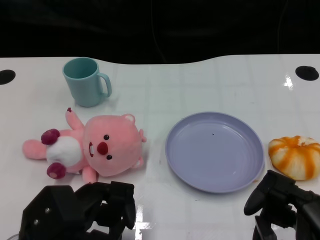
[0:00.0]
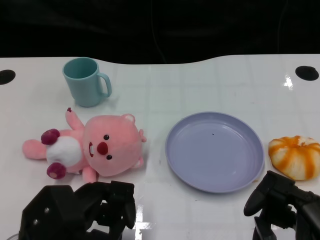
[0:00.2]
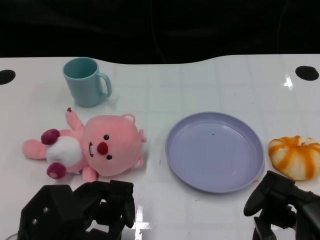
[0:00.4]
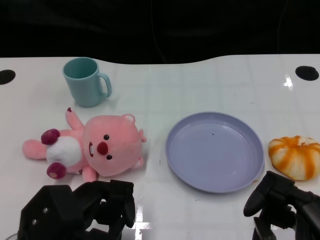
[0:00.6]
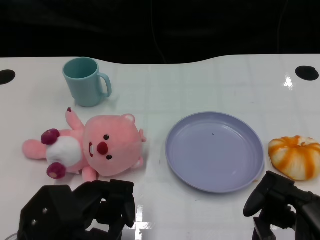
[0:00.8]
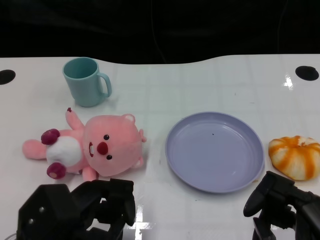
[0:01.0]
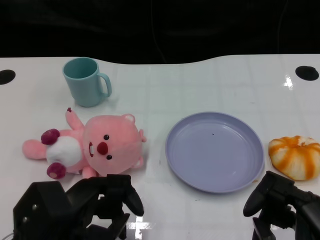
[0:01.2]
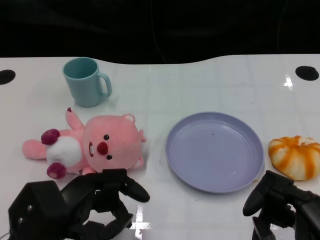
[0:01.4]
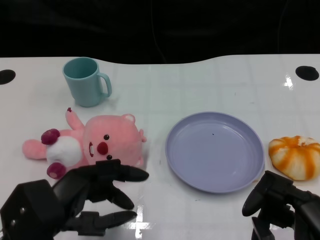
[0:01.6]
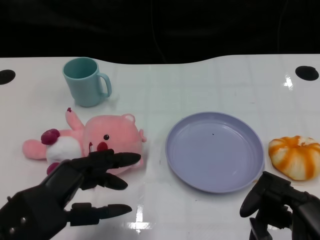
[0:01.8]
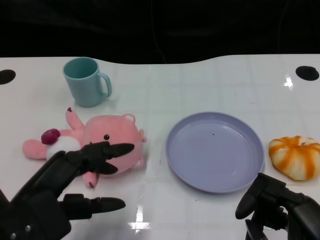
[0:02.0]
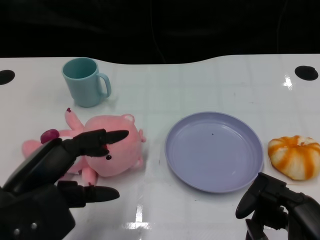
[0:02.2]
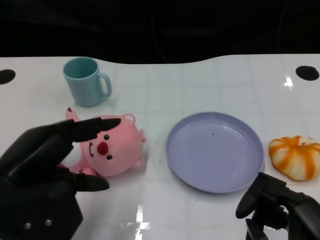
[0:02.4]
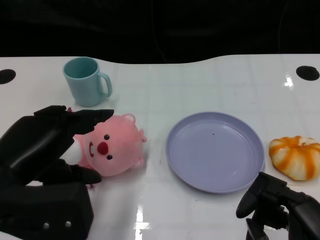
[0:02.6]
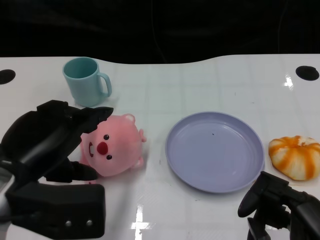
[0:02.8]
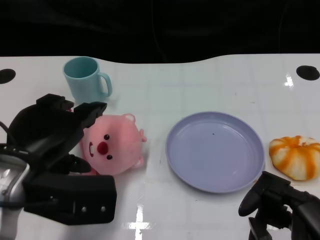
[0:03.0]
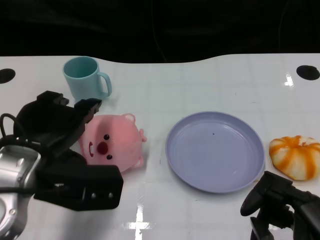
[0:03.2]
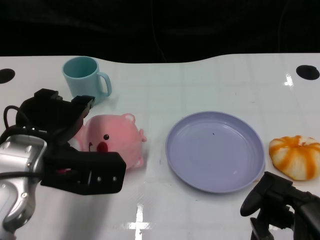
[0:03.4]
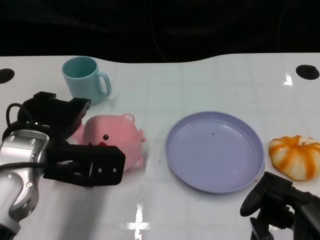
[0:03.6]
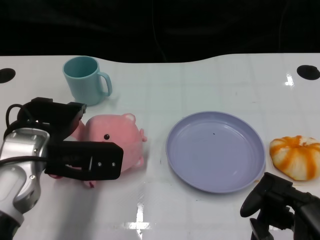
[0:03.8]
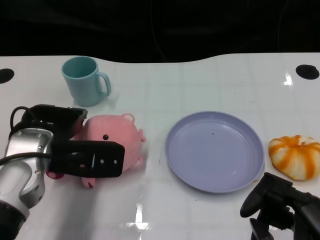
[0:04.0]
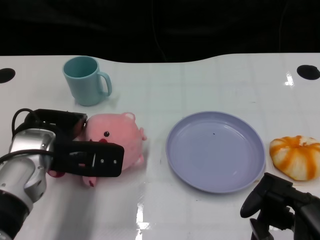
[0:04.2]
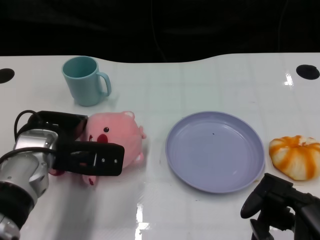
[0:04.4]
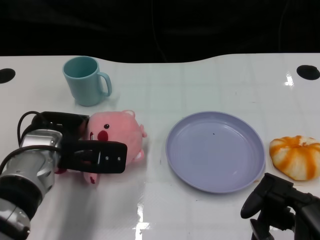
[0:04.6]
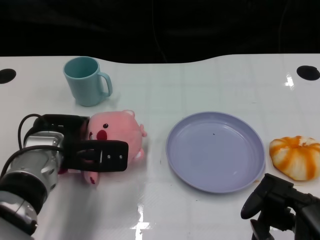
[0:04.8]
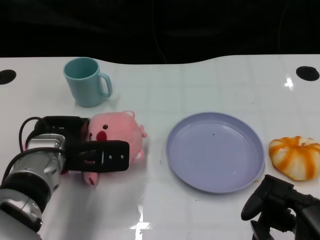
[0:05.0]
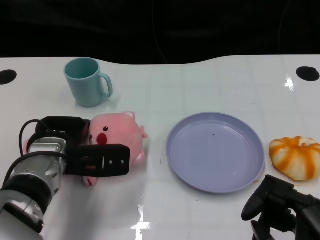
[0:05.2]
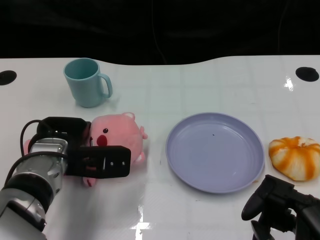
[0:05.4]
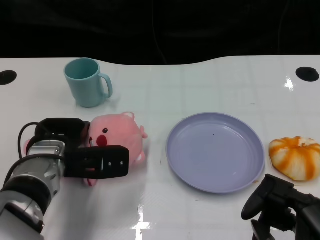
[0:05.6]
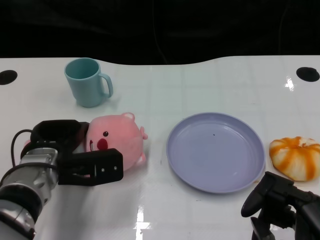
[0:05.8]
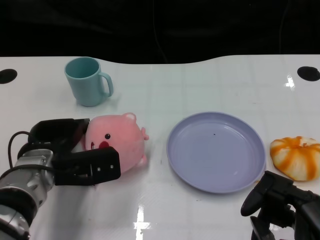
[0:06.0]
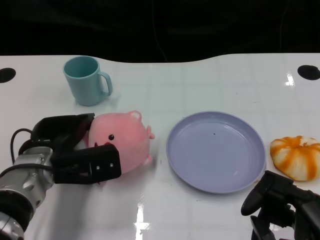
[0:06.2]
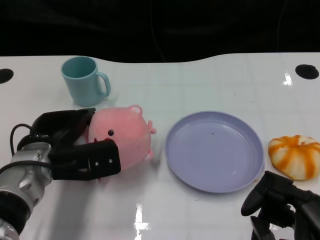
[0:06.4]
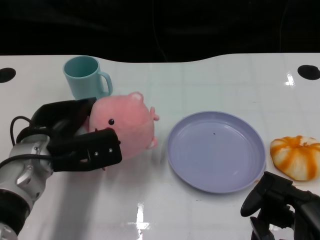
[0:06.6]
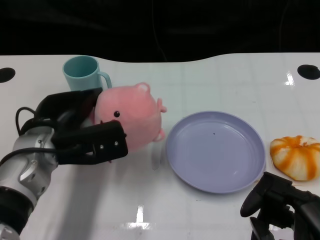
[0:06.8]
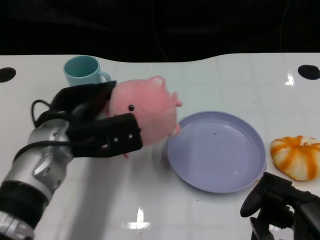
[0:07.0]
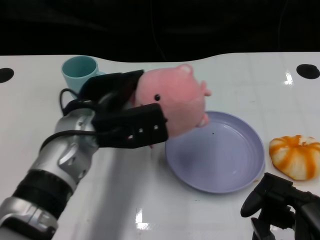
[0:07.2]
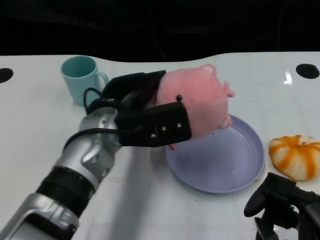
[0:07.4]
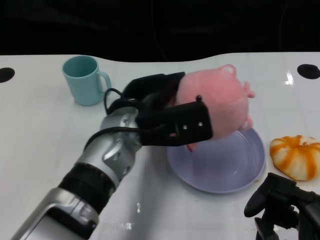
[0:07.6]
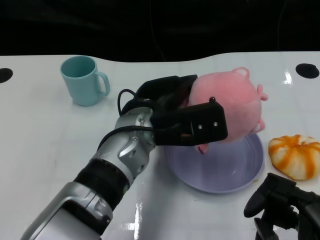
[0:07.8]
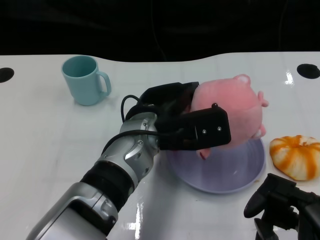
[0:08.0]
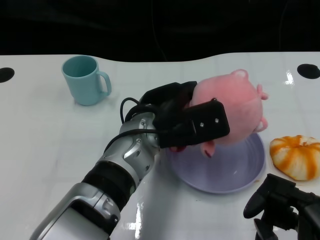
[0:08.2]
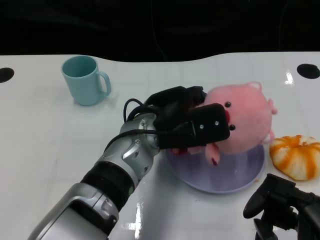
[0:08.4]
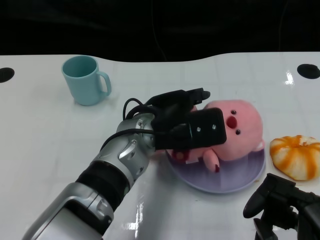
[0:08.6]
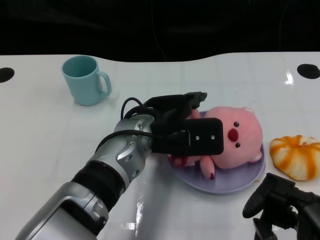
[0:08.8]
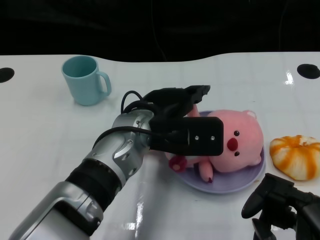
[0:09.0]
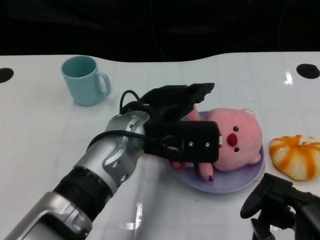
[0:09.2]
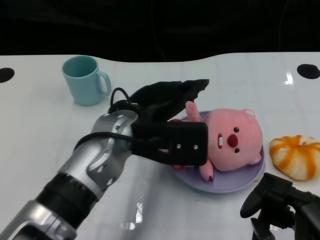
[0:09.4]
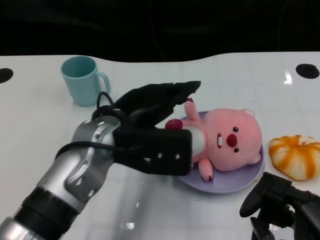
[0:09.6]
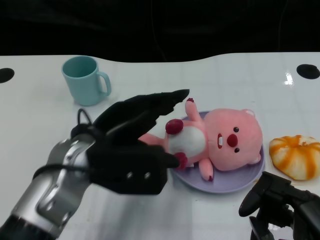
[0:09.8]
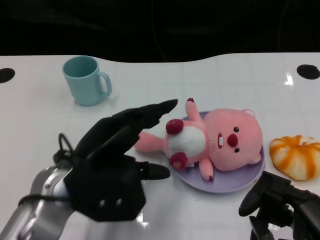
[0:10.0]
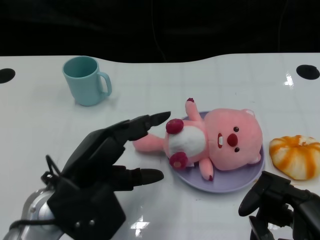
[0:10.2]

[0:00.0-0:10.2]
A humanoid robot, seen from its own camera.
Task of the whole recording: Pick up the doll on one side of the plate and place it into the plate.
Step, 0:01.0 to 0:06.6: Grasp the pink doll with the left gripper.
Step, 0:06.8 to 0:09.2: Place the pink doll into the plate with the left gripper.
0:01.4 to 0:03.0: The left hand goes some 10 cm upward.
0:03.0 to 0:04.4: The left hand moves forward and downward, approximately 10 cm.
0:04.4 to 0:05.8: The hands make only small movements.
0:05.8 to 0:07.2: The left hand heads upward and to the right, covering approximately 10 cm.
0:07.2 to 0:08.8: The left hand travels to the right by some 10 cm.
0:08.8 to 0:10.2: The left hand heads to the left and backward, covering approximately 15 cm.

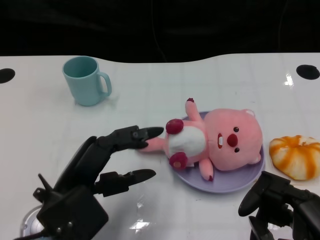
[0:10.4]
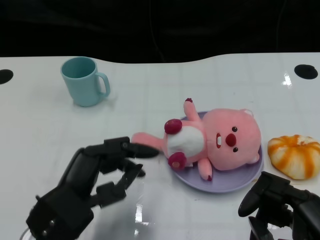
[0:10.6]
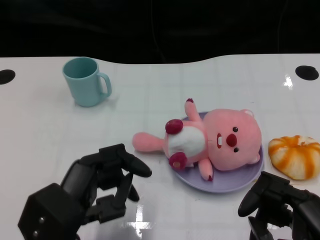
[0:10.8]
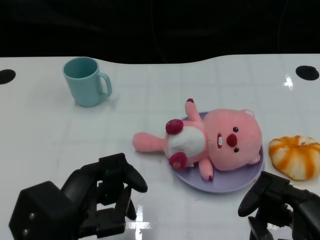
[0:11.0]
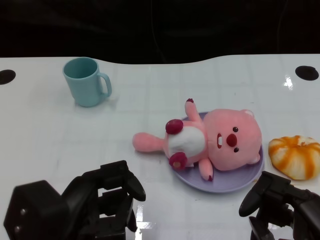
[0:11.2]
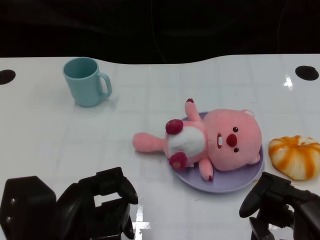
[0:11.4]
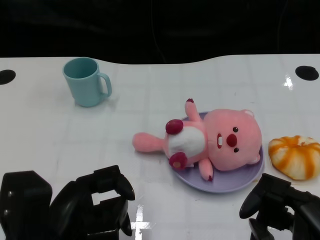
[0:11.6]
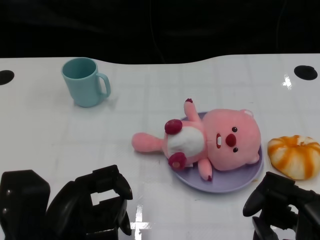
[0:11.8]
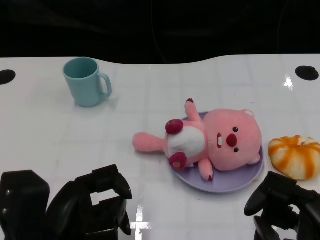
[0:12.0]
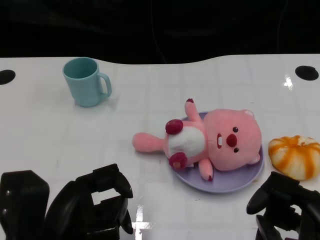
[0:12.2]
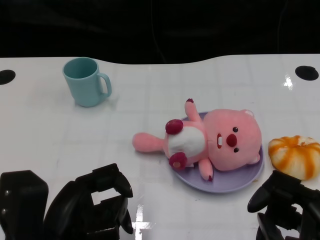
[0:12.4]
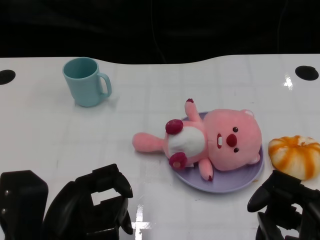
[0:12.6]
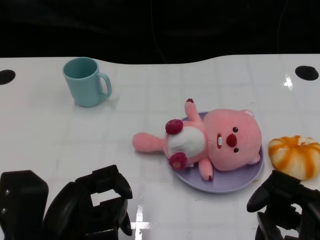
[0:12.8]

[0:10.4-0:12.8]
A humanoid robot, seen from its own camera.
Task of the whole recording: Pick up the doll on one side of the plate and place it into the plate.
0:10.4 to 0:11.6: The left hand shifts approximately 5 cm backward.
0:11.6 to 0:12.8: The hands stay close to where they were, moving slightly.

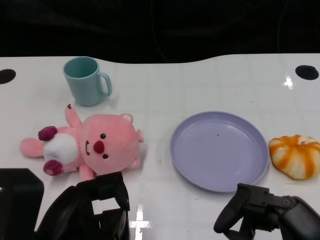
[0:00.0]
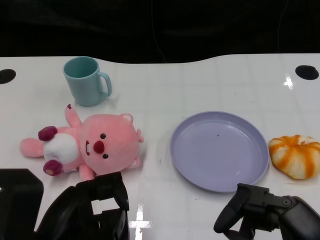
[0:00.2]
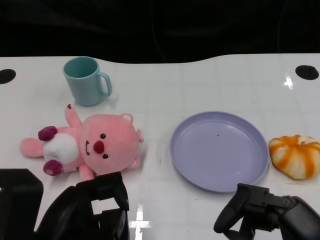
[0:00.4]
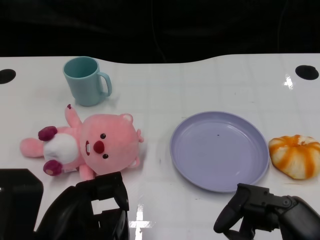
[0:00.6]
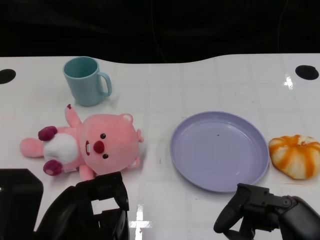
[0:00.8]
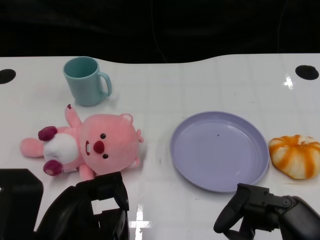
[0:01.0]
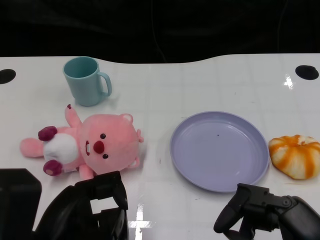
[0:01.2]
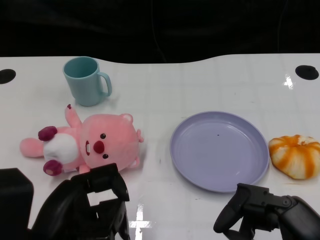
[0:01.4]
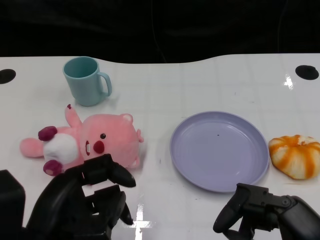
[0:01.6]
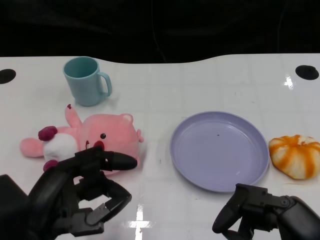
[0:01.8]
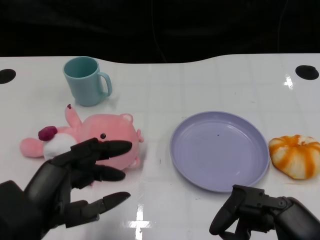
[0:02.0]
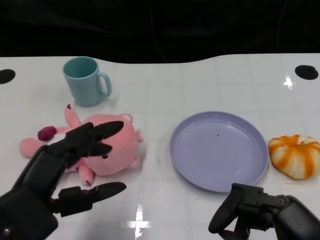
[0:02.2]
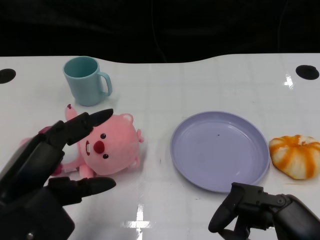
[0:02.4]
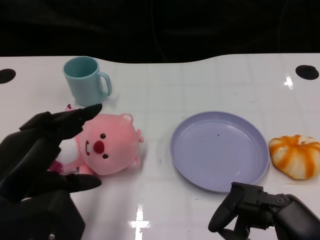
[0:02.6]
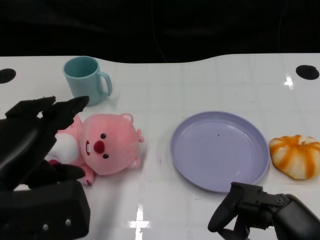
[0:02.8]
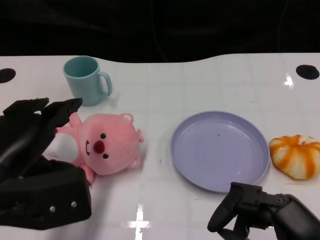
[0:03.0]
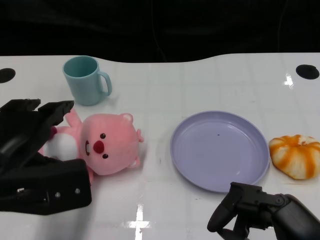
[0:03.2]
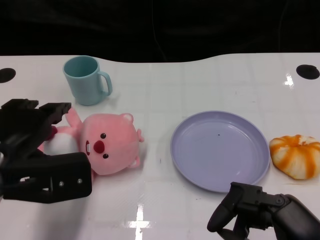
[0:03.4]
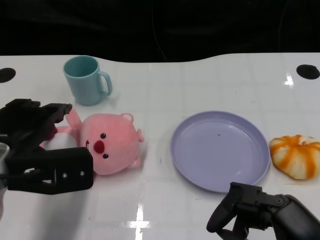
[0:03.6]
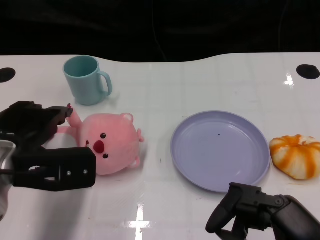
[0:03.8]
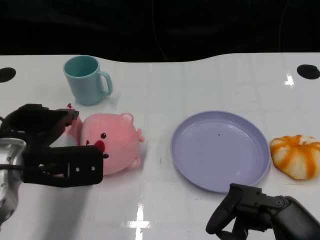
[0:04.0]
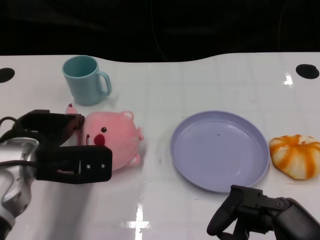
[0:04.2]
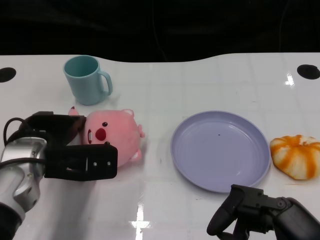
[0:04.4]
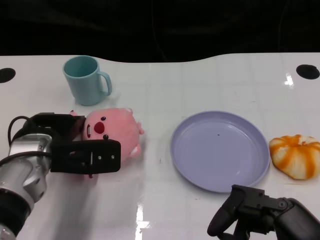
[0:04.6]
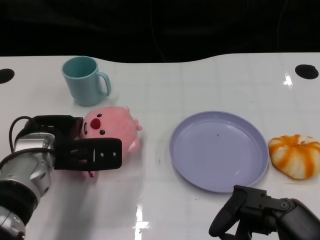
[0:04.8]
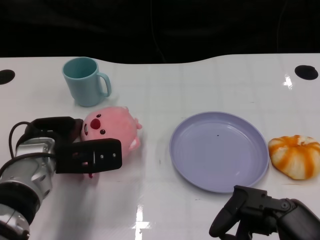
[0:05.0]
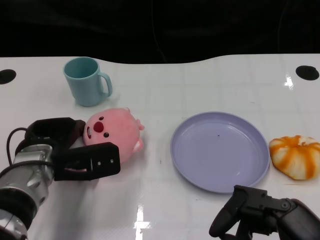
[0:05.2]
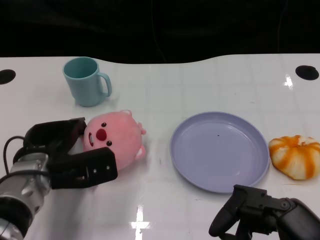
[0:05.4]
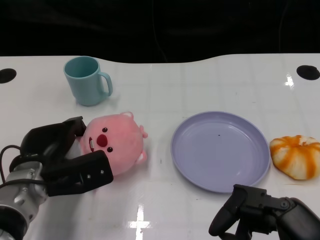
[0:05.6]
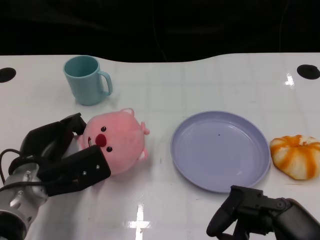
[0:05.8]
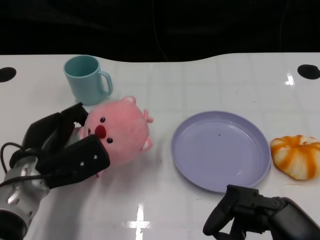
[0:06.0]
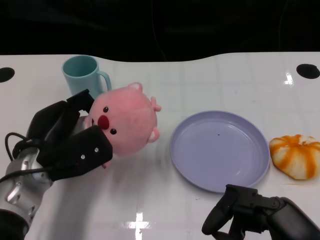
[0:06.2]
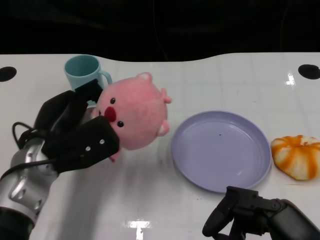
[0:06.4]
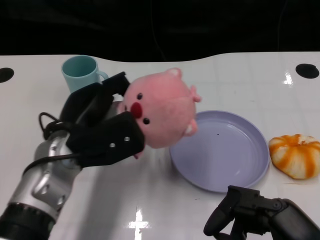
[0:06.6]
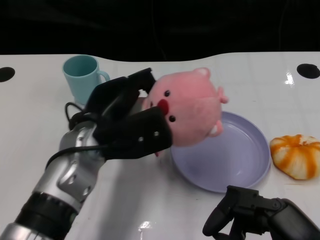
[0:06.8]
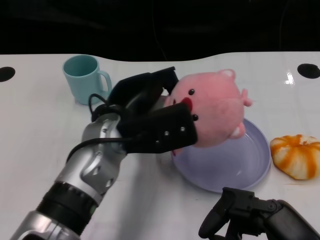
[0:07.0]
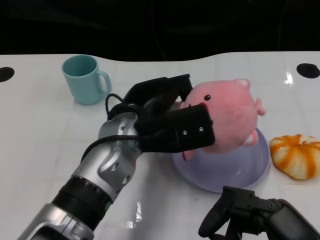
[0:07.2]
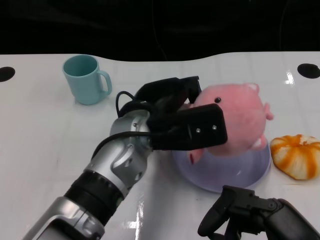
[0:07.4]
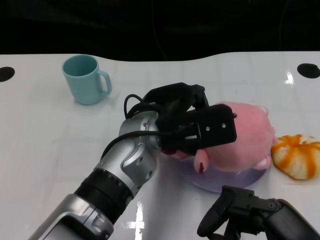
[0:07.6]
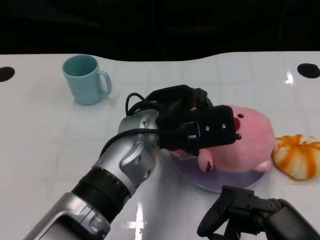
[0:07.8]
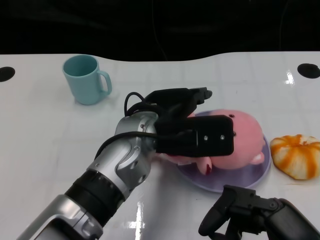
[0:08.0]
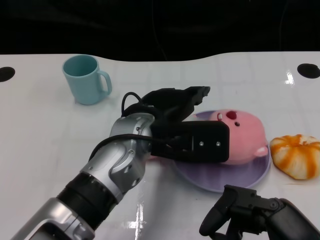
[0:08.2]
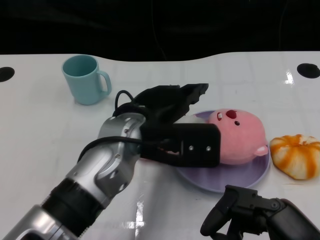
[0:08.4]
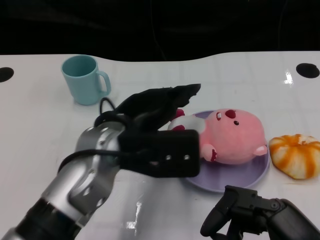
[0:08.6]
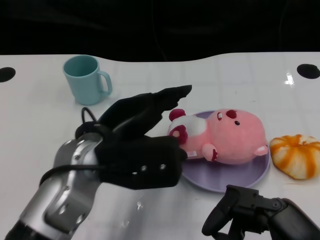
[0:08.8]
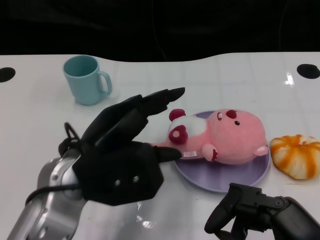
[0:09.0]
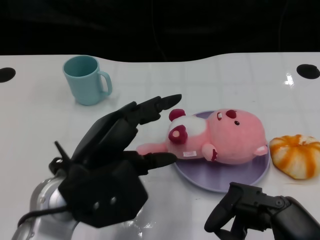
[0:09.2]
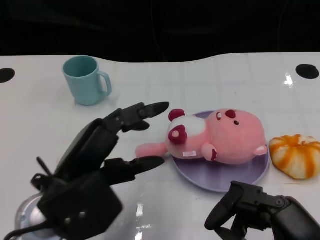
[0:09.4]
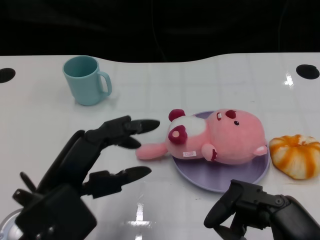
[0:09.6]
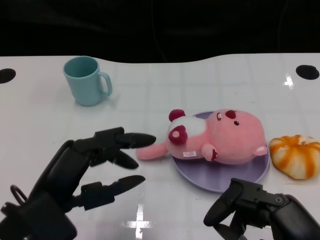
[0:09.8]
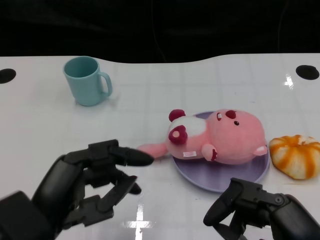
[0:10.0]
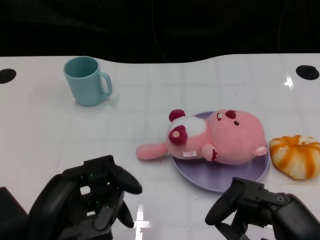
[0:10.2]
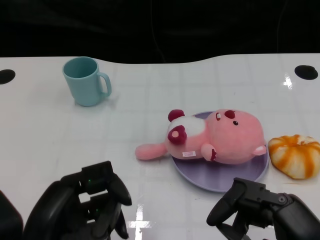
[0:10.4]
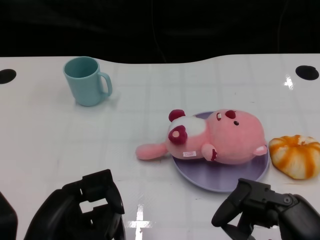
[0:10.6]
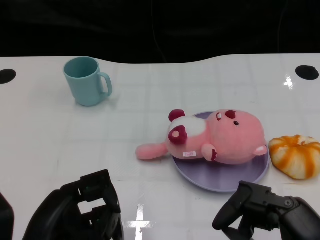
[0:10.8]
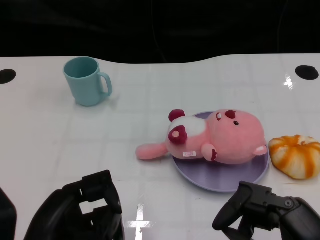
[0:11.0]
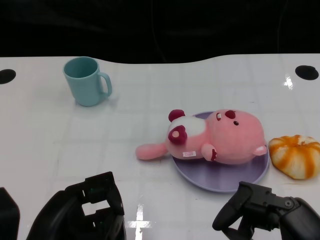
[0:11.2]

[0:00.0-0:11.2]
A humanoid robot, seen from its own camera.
Task of the whole recording: Pick up the doll on one side of the plate and place it into the plate.
Step, 0:01.2 to 0:05.8: Grasp the pink doll with the left gripper.
Step, 0:06.0 to 0:08.2: Place the pink doll into the plate with the left gripper.
0:01.6 to 0:03.2: The left hand travels forward by roughly 5 cm.
0:03.2 to 0:04.8: The left hand moves forward and downward, roughly 10 cm.
0:06.4 to 0:08.0: The left hand travels to the right by roughly 15 cm.
0:08.0 to 0:09.6: The left hand goes some 20 cm to the left and backward.
0:09.6 to 0:11.2: The left hand travels backward by some 5 cm.
